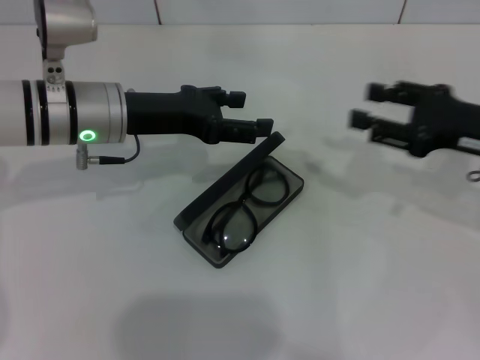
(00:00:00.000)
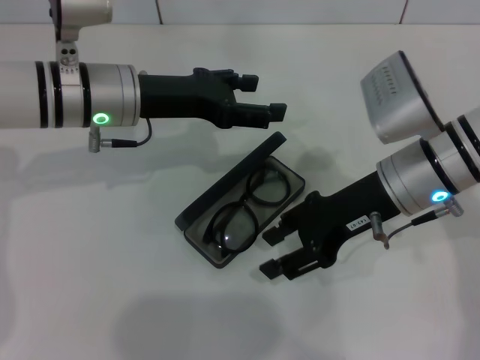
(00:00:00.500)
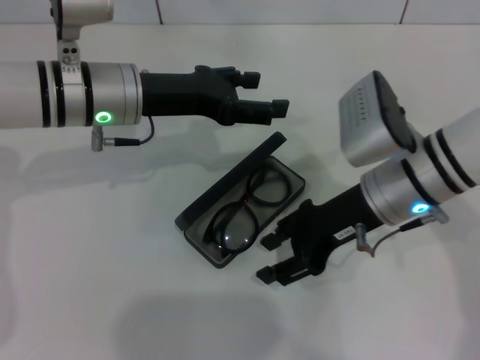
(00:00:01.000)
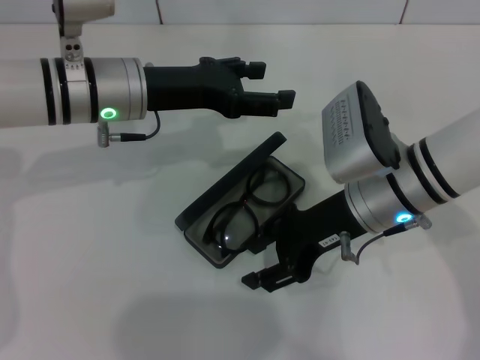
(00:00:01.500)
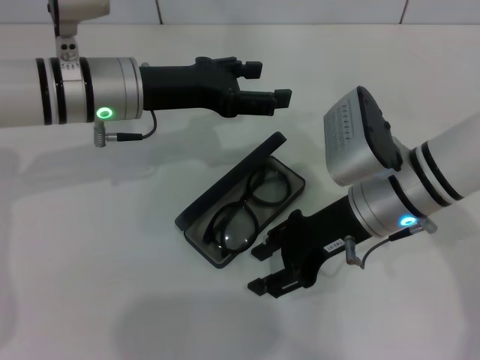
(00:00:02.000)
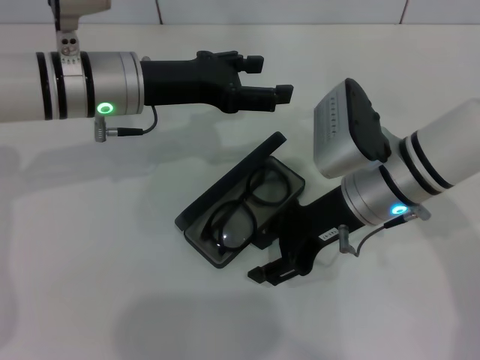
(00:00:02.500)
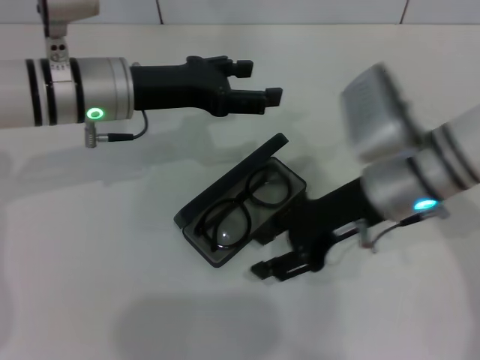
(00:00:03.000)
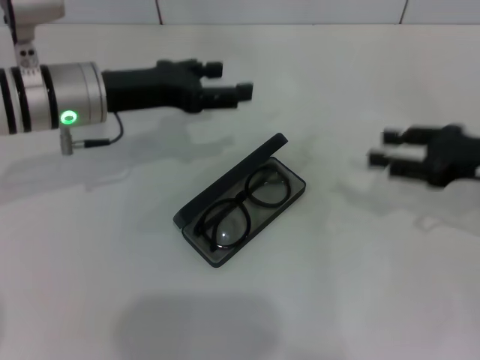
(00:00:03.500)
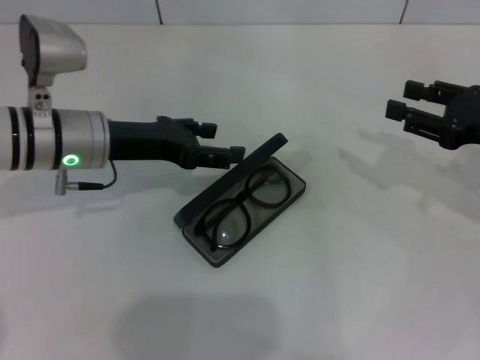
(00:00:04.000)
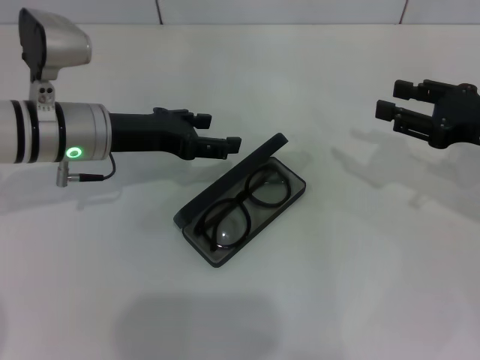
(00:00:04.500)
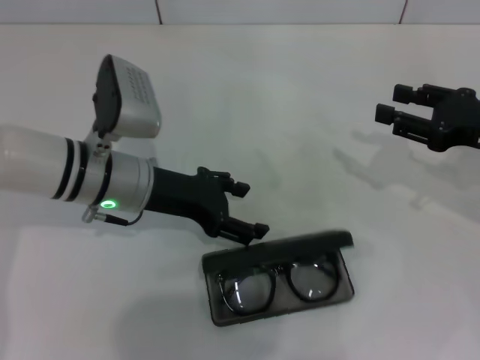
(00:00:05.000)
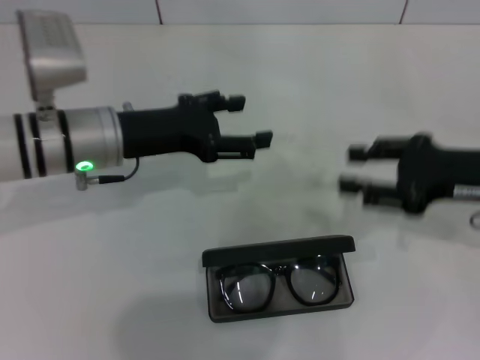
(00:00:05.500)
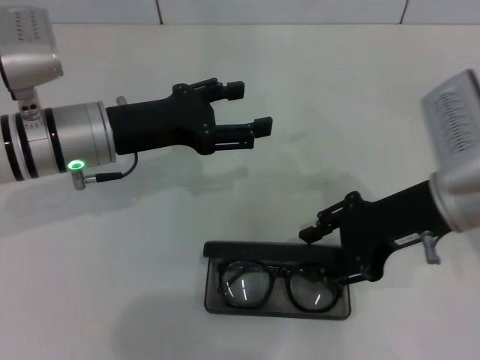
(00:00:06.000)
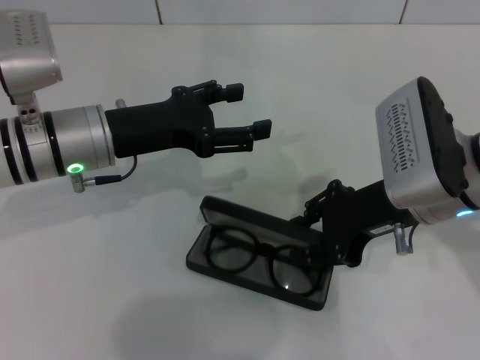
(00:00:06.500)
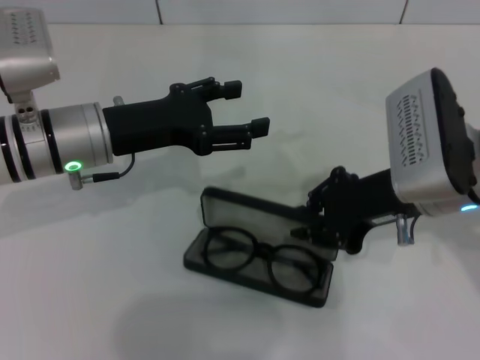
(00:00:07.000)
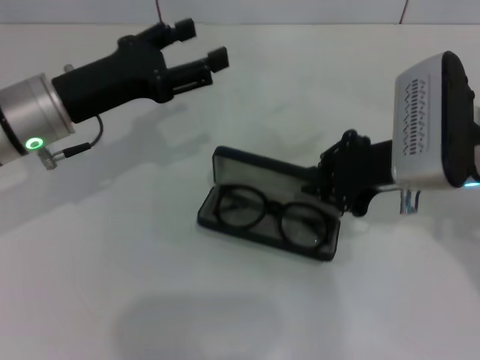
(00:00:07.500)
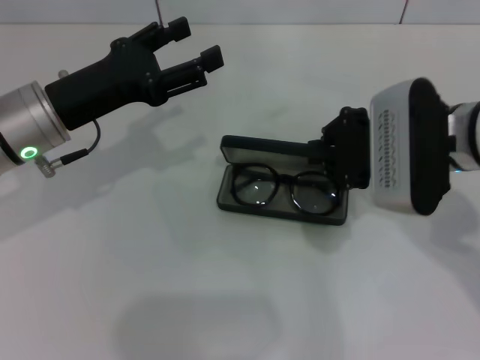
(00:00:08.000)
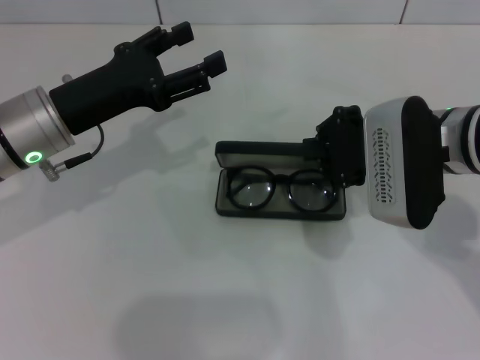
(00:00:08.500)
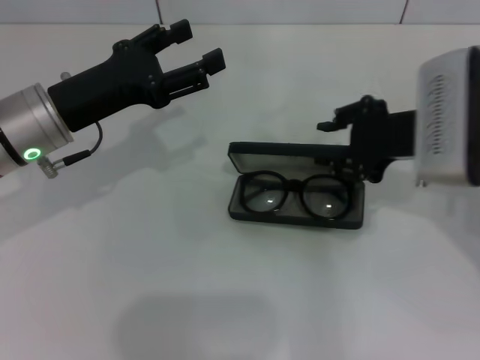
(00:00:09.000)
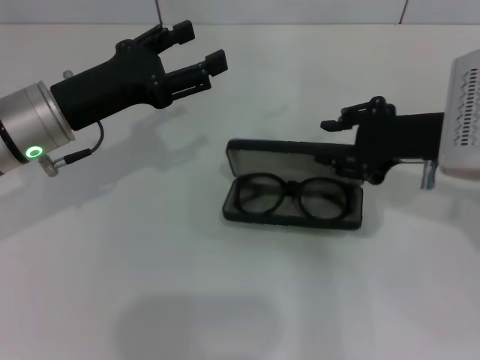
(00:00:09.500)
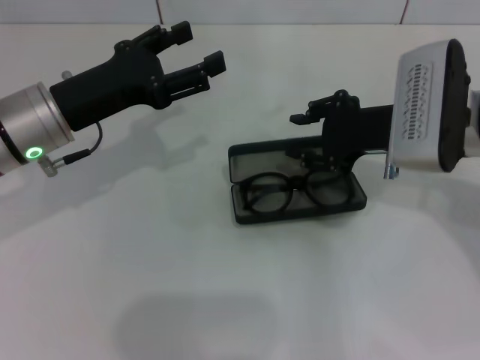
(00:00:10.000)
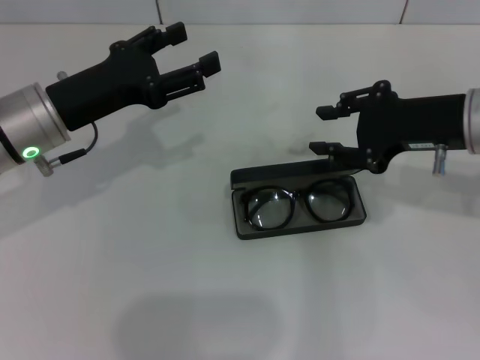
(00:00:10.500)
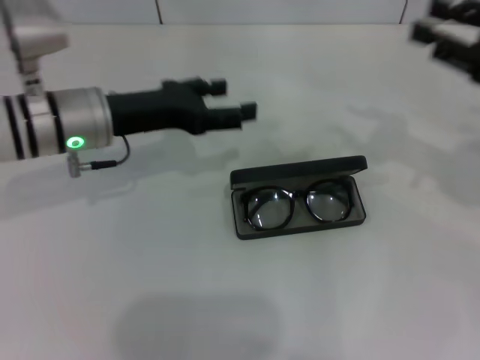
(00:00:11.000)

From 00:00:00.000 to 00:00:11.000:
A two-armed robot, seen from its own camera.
Step, from 00:00:00.000 to 00:00:06.500: Grab the glasses case with your right hand.
Step, from 00:00:07.000 to 00:00:10.000: Place the glasses case in the center of the table with your right hand.
From 00:00:00.000 to 00:00:02.000: The right gripper travels to the left by roughly 15 cm.
From 00:00:02.000 to 00:00:03.500: The right gripper is displaced to the right by roughly 15 cm.
From 00:00:05.500 to 00:00:07.500: The right gripper shifts some 10 cm to the left, and closes.
From 00:00:09.000 to 00:00:11.000: The right gripper is displaced to the right by approximately 10 cm.

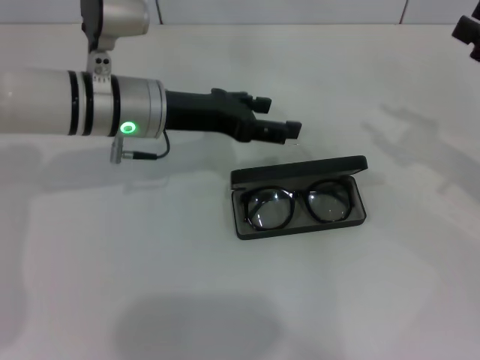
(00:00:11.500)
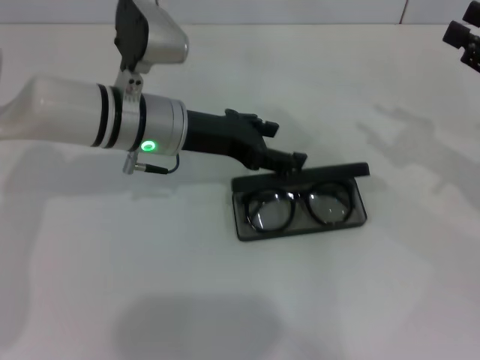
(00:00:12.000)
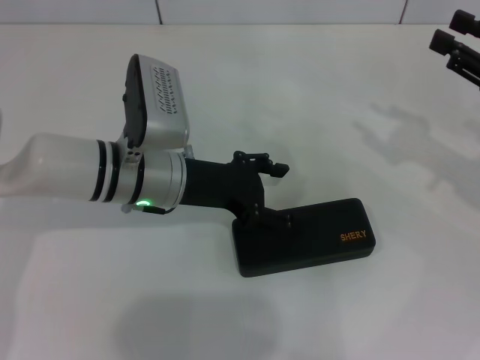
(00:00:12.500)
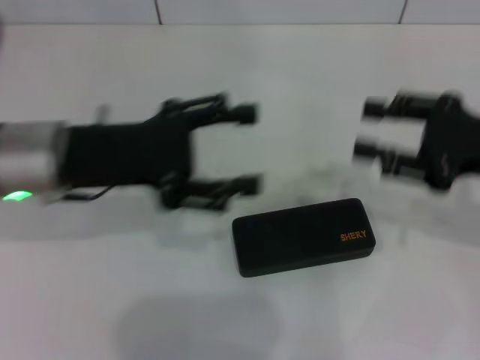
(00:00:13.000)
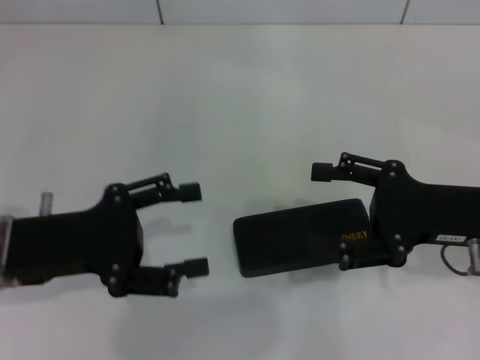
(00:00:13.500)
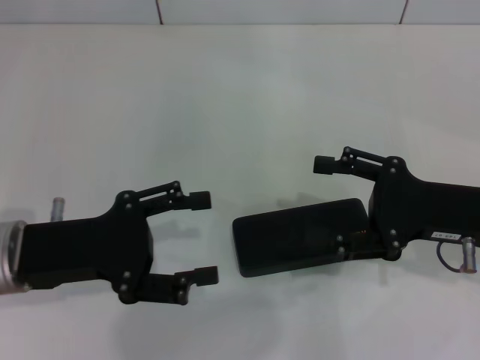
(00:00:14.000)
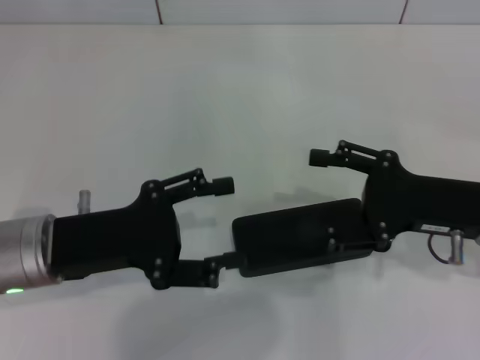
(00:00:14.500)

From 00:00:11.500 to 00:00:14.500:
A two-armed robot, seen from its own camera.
From 00:00:11.500 to 00:00:13.000: The left gripper heads backward and to the left, covering approximately 10 cm, while the right gripper is displaced to the left by roughly 5 cm.
From 00:00:13.000 to 00:00:14.500: The left gripper moves backward and downward, approximately 10 cm; the right gripper travels downward by roughly 5 cm, and opens its fingers.
